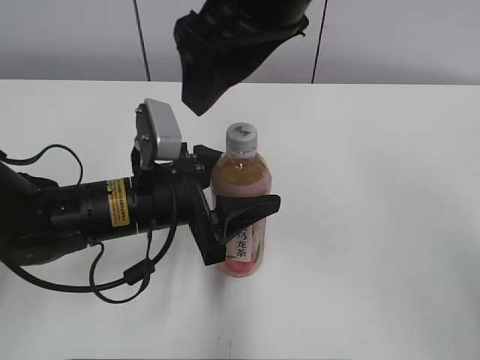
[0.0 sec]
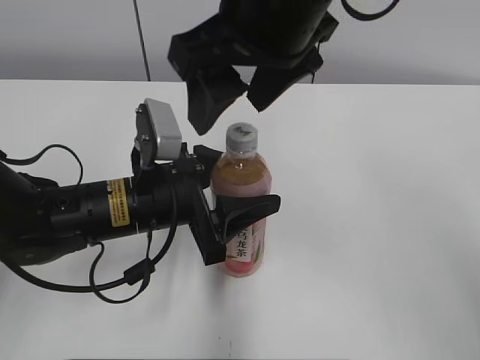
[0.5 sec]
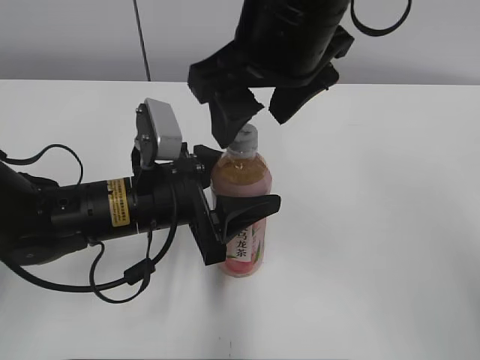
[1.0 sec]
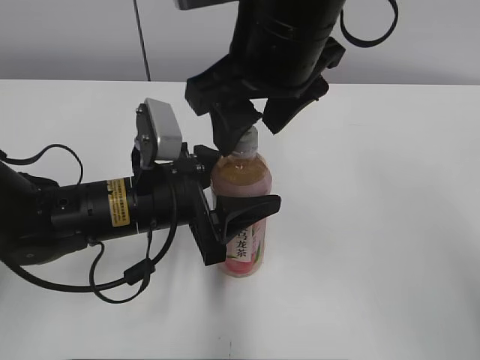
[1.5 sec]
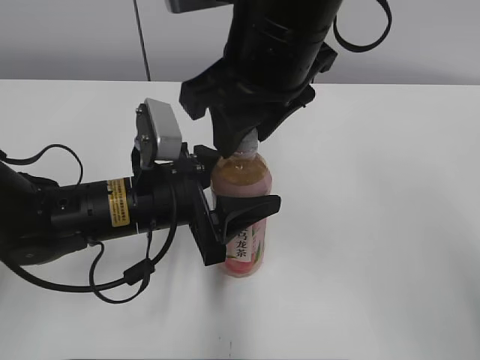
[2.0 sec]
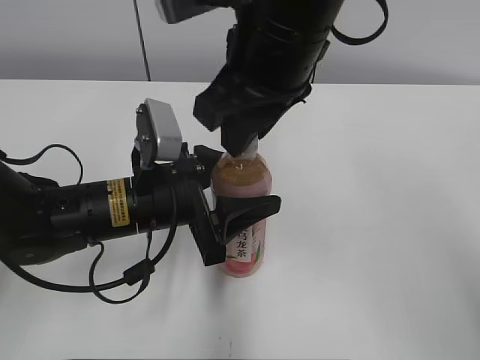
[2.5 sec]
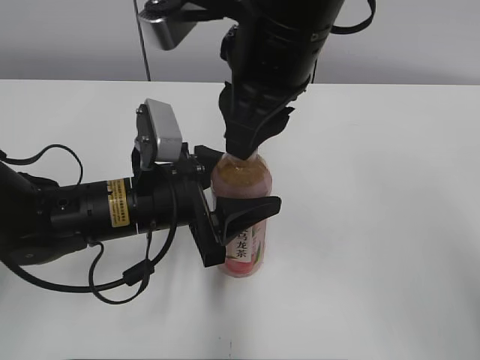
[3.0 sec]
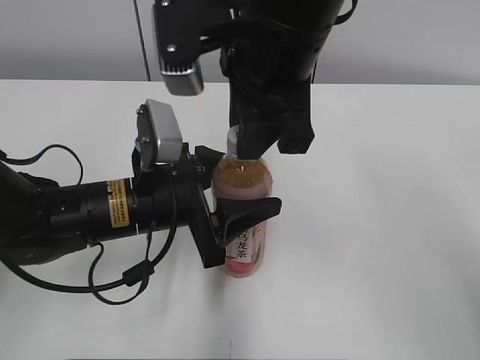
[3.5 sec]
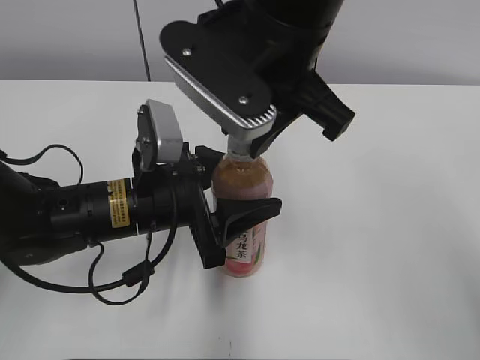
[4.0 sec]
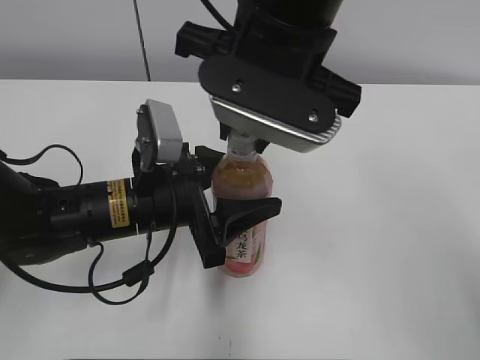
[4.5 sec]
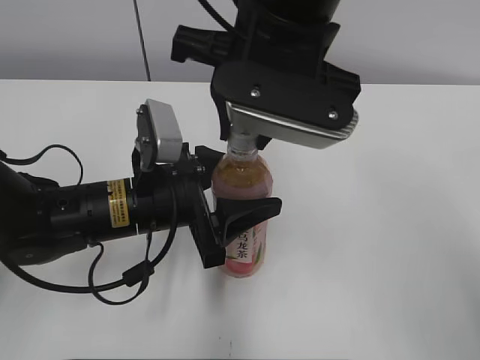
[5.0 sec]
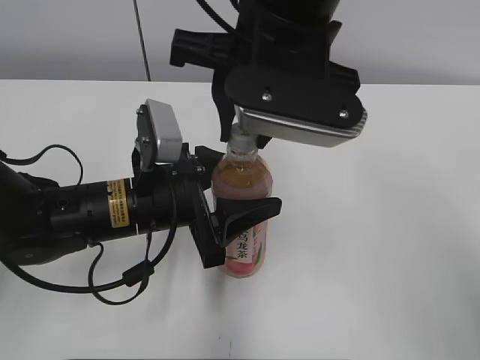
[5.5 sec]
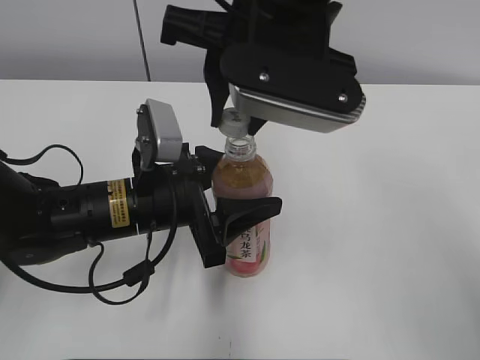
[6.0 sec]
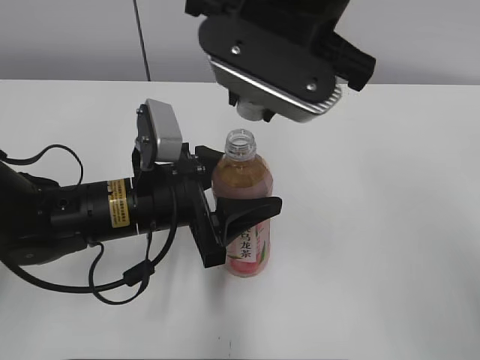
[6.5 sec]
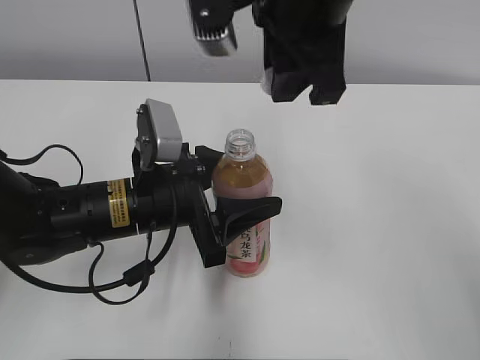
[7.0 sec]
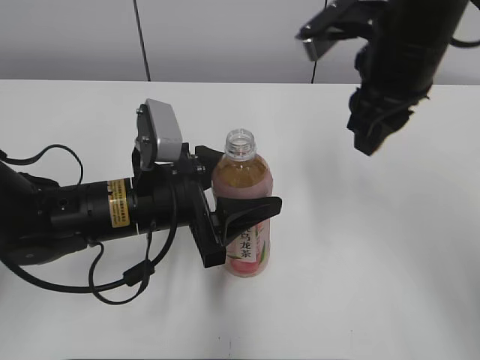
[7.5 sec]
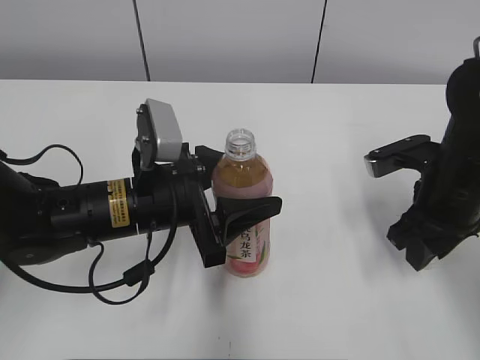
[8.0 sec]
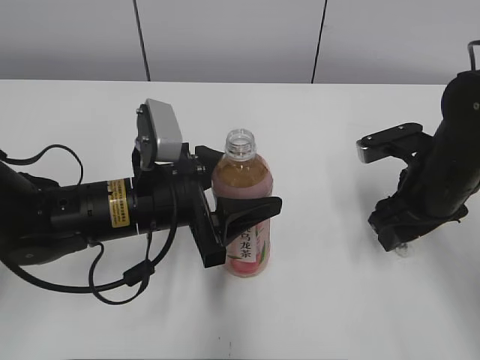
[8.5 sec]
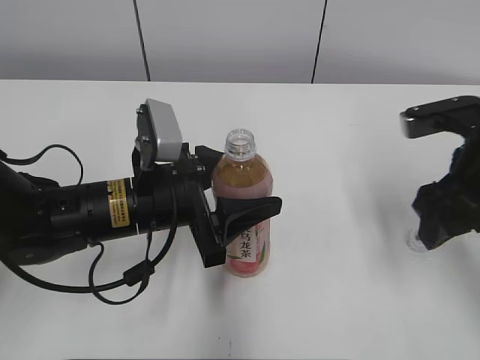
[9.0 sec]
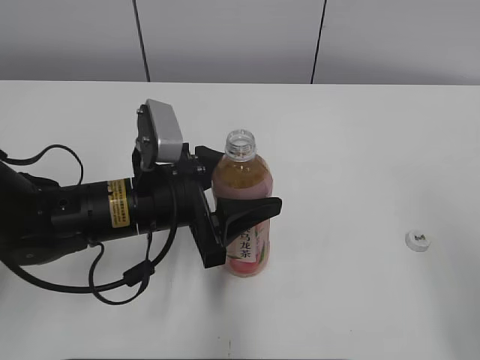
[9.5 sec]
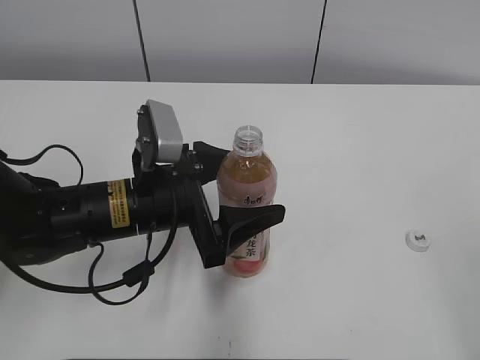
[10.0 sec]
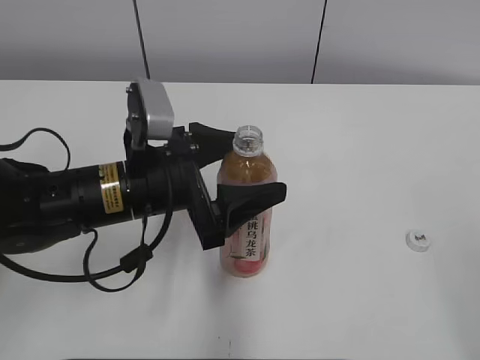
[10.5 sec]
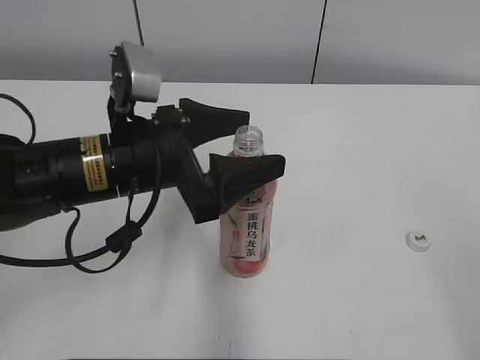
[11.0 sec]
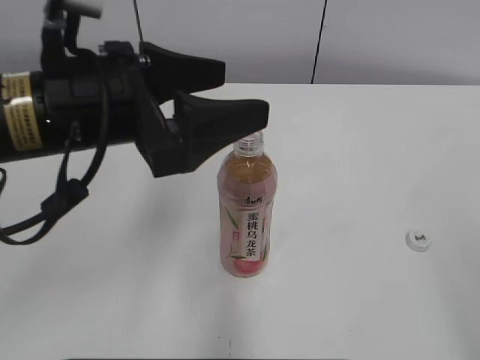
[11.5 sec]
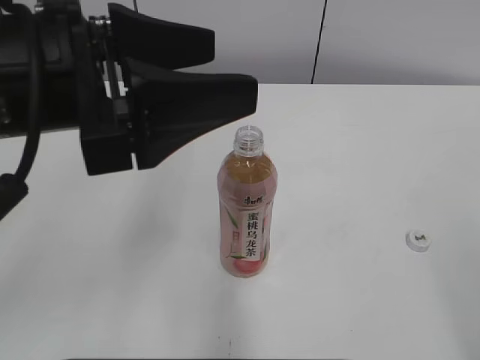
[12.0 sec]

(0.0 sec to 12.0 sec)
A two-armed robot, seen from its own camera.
Step, 6.5 sec - 8.5 sec: Place the bottle cap on the right.
Step, 9.5 sec - 10.5 sec: Place the Peach Oolong Tea with the left hand.
0.0 sec - 2.0 sec: The right gripper closes its fingers.
6.0 sec - 8.0 sec: The right gripper shifts about 25 cm to the right and downward.
8.0 sec - 10.0 sec: The left gripper opens. The right gripper goes roughly 30 cm backward and upward, and opens up.
10.0 sec - 12.0 sec: The left gripper travels upward by some 15 cm.

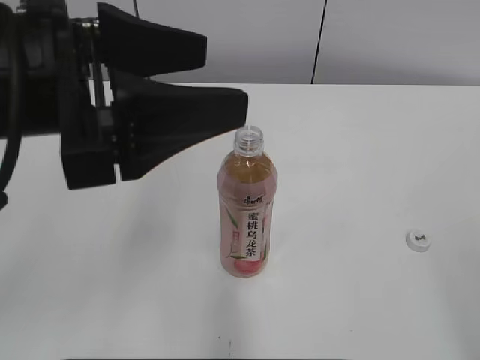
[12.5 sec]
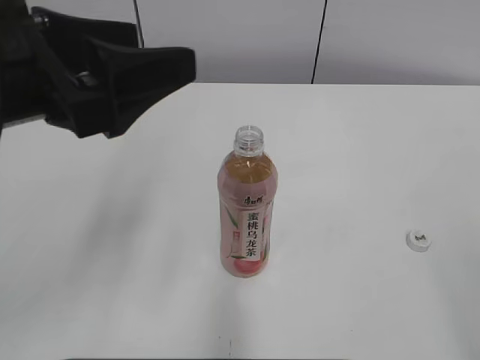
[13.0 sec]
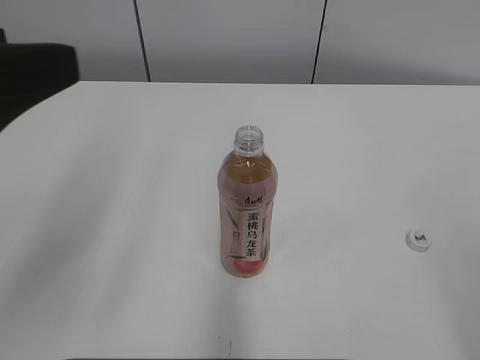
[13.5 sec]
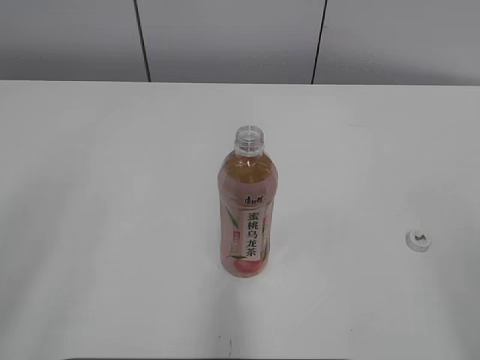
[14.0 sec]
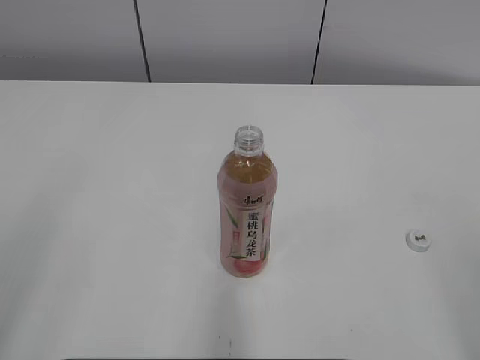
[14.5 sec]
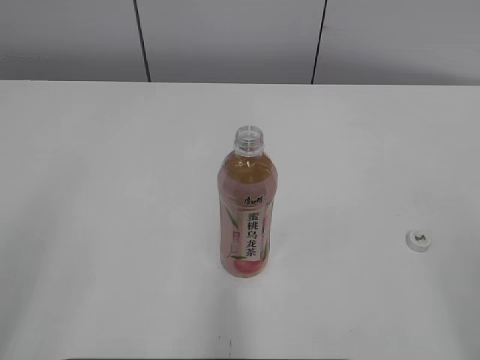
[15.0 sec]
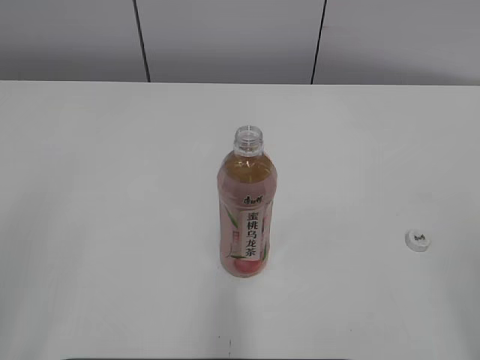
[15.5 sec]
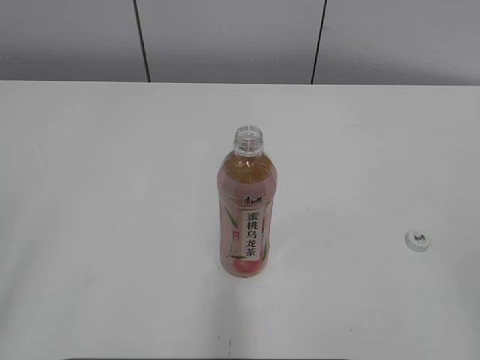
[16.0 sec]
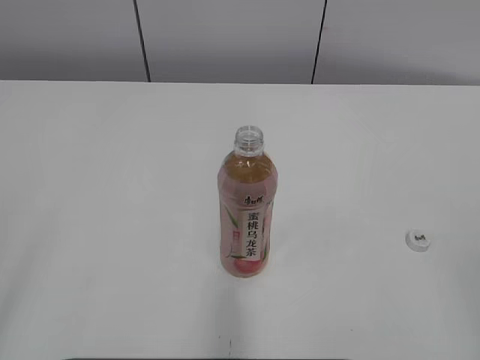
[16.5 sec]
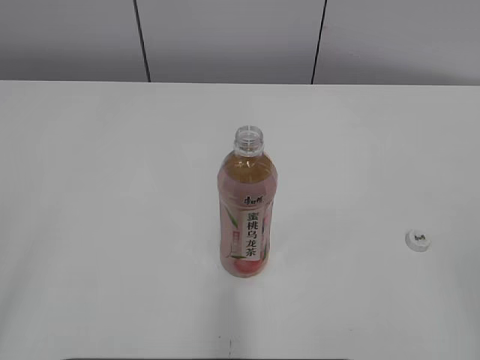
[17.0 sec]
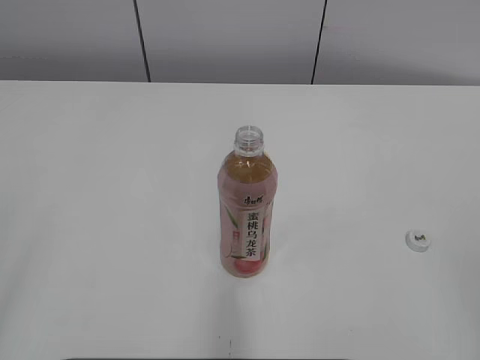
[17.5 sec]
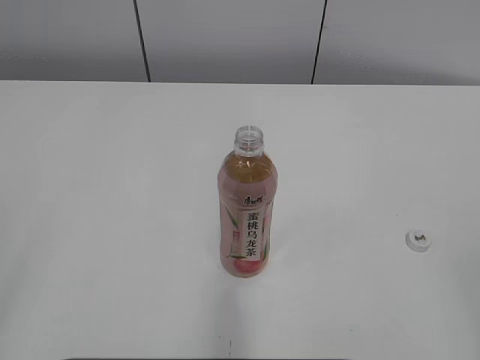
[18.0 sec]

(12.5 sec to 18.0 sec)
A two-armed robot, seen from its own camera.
12.5 sec - 14.5 sec: The left gripper goes roughly 20 cm backward and to the left.

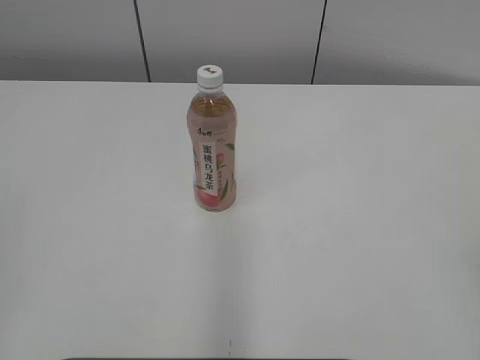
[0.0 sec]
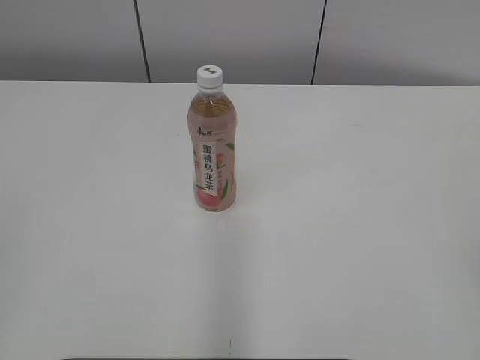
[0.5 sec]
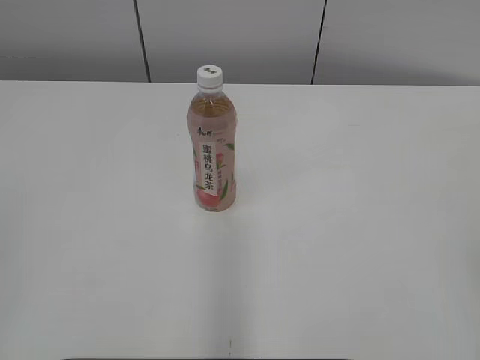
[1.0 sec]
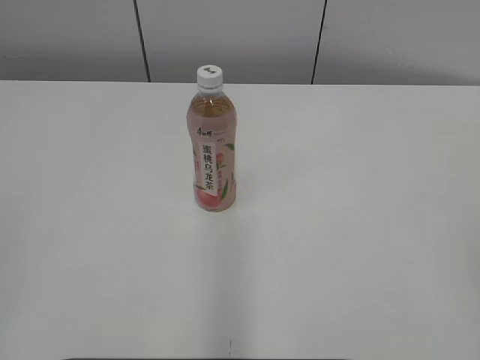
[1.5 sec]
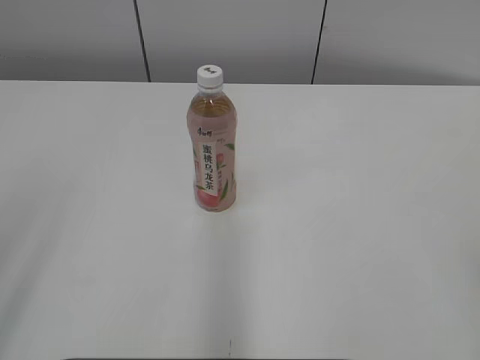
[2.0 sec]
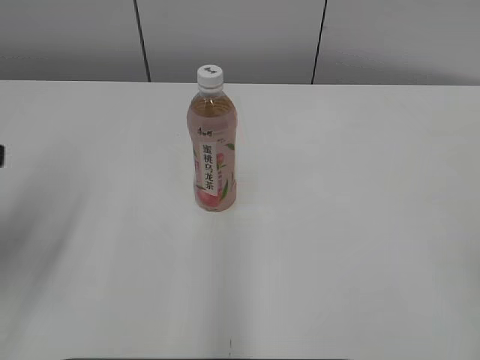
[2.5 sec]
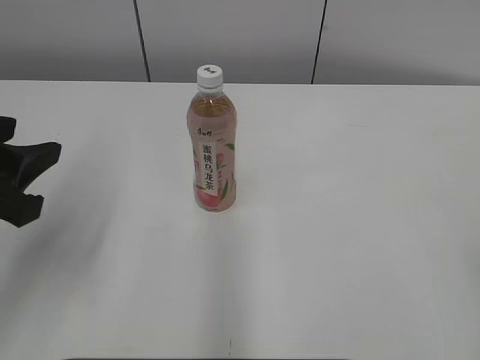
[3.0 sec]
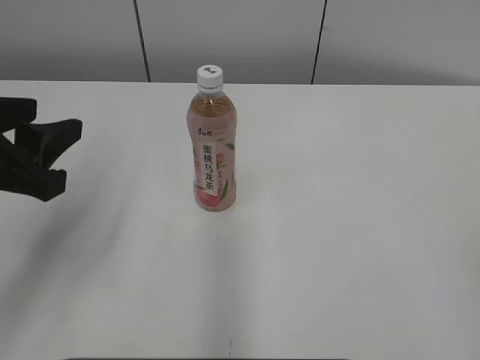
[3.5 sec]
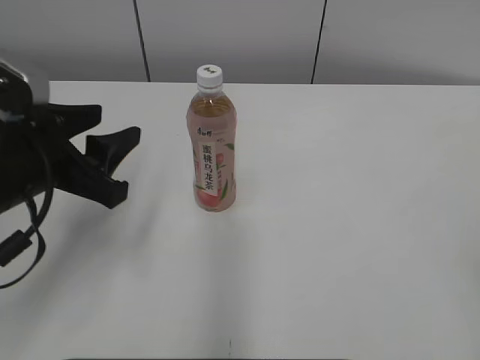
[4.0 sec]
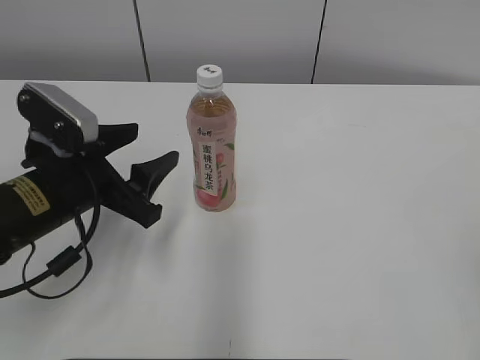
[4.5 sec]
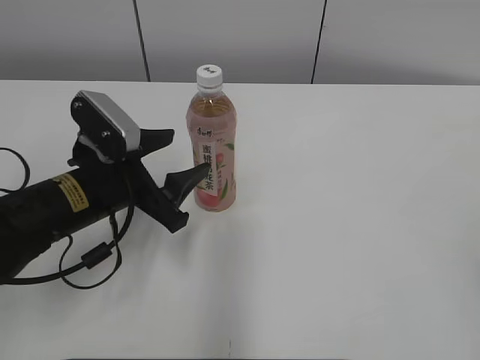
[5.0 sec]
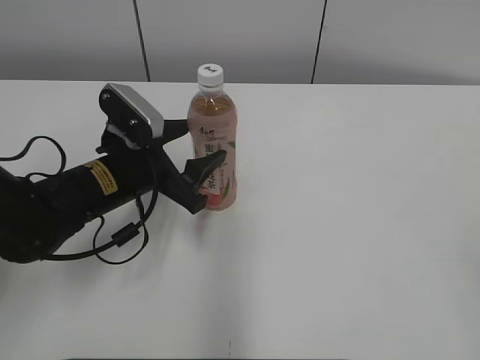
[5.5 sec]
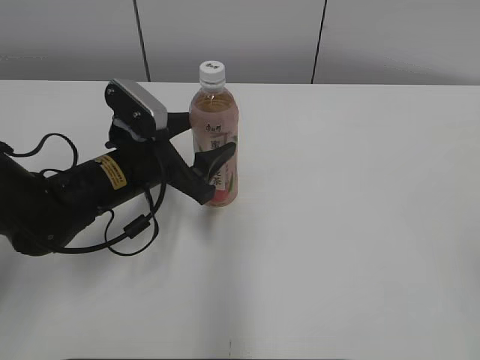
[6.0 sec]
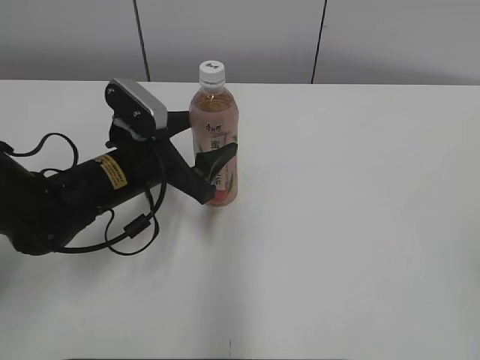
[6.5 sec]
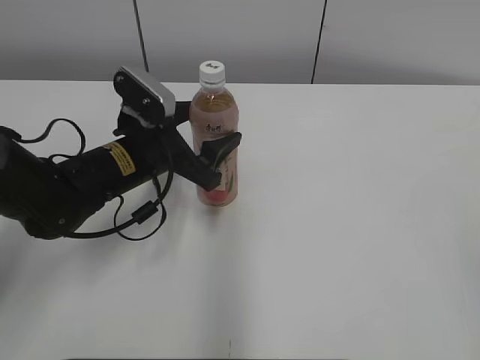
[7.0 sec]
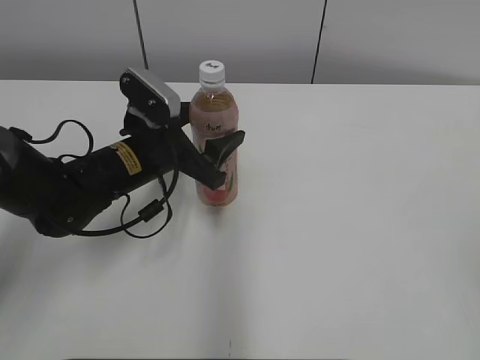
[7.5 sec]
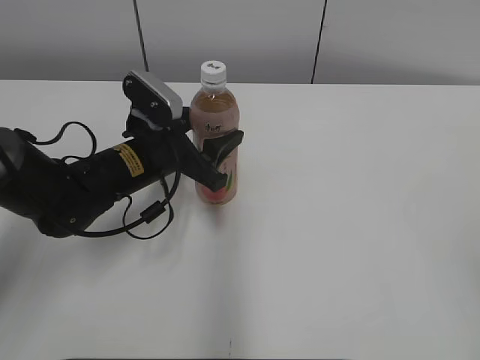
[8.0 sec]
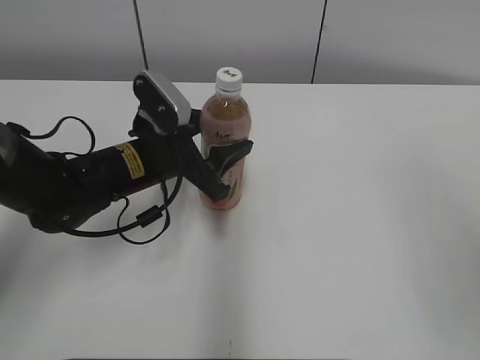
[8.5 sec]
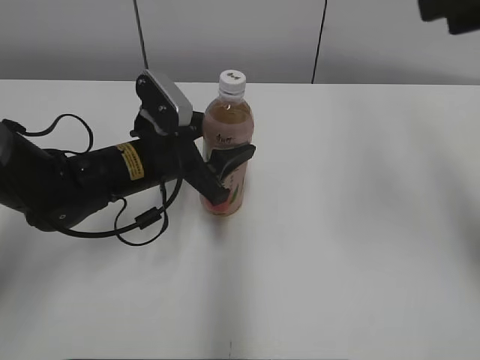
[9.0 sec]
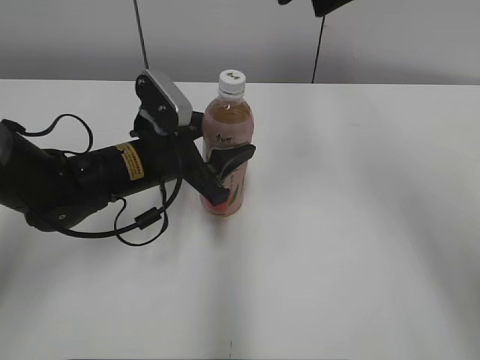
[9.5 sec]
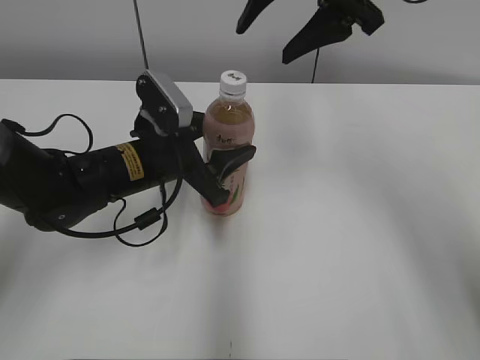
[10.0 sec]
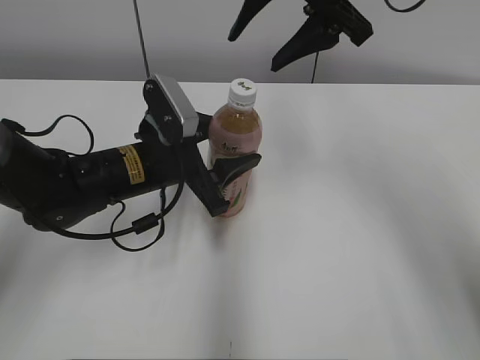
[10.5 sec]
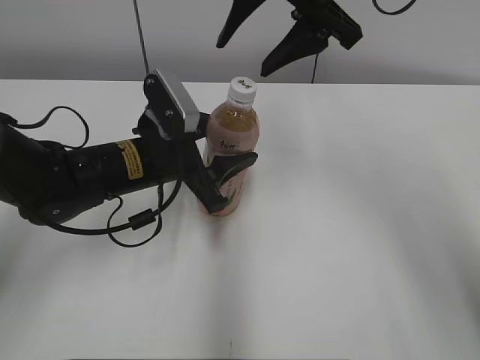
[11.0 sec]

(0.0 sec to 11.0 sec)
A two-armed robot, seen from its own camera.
Step, 0.0 sec - 7.5 sec: Grab the Peach Oolong Tea with the left hand.
2.0 sec - 3.5 sec: The left gripper goes roughly 20 cm forward and downward, and opens up.
3.5 sec - 5.5 sec: The left gripper heads downward, forward and to the right, covering roughly 20 cm.
5.5 sec - 7.5 sec: The grippers move only a little.
7.5 sec - 9.0 sec: The right gripper is displaced forward and upward by approximately 25 cm.
9.0 sec - 11.0 sec: The right gripper goes some 20 cm to the left, forward and downward.
